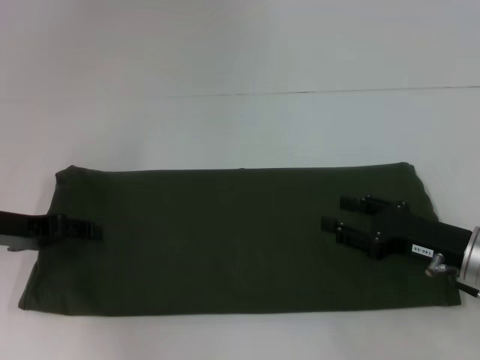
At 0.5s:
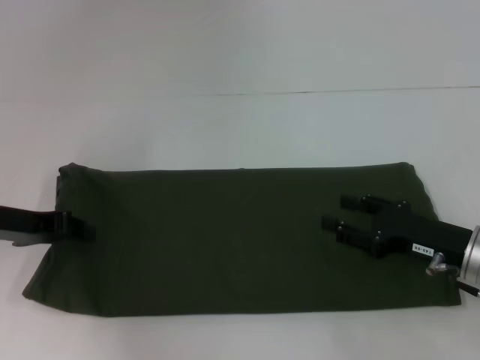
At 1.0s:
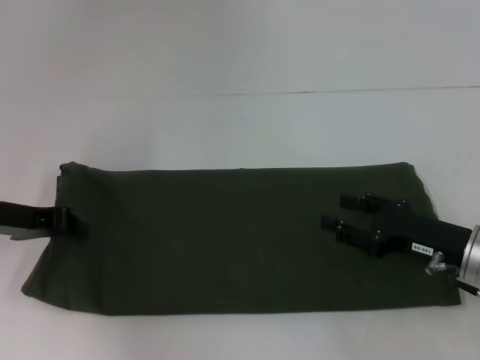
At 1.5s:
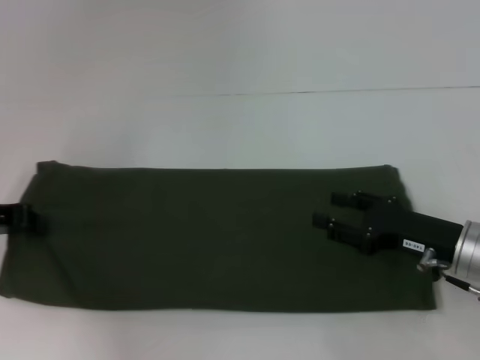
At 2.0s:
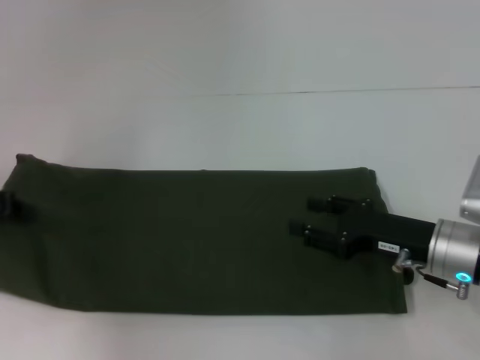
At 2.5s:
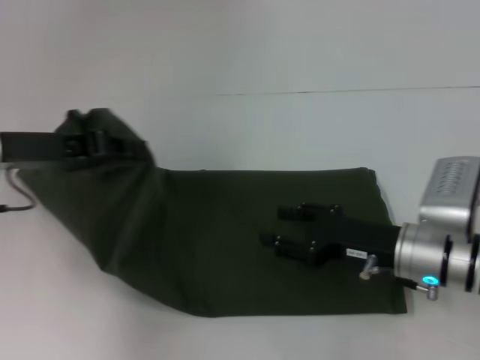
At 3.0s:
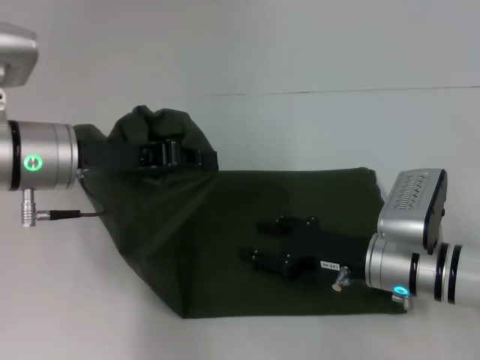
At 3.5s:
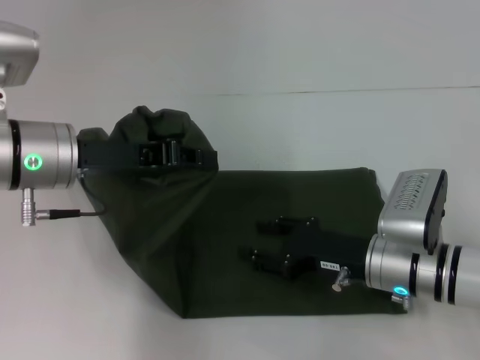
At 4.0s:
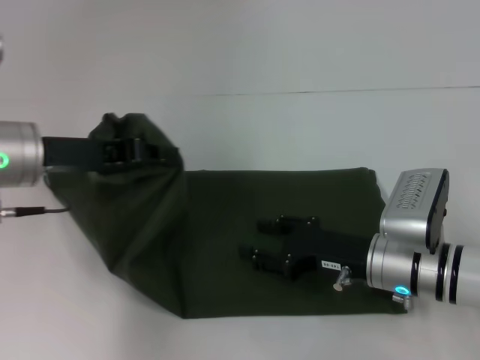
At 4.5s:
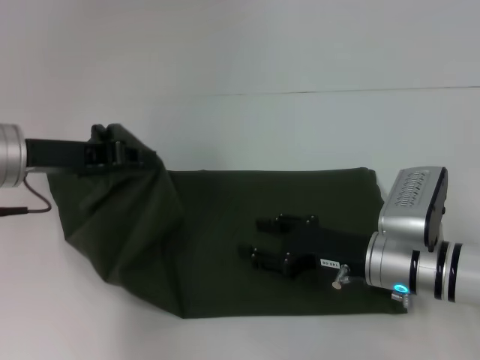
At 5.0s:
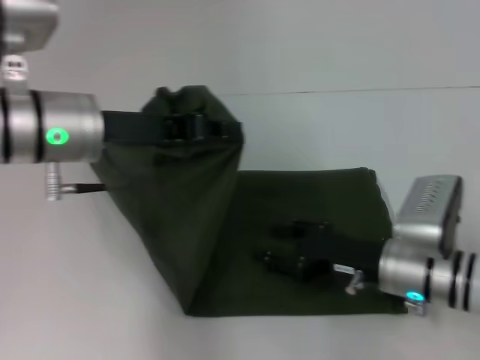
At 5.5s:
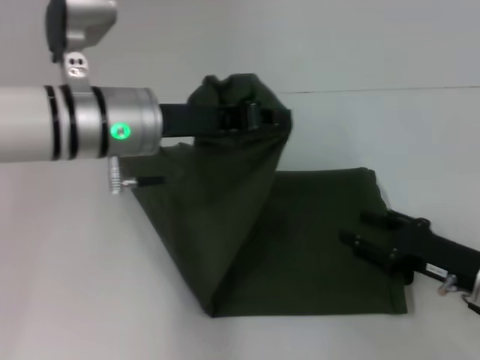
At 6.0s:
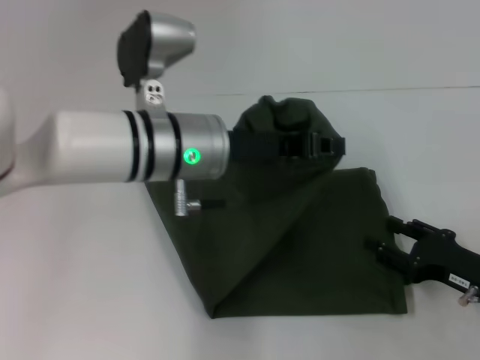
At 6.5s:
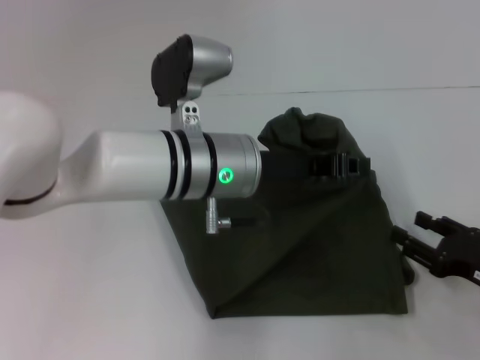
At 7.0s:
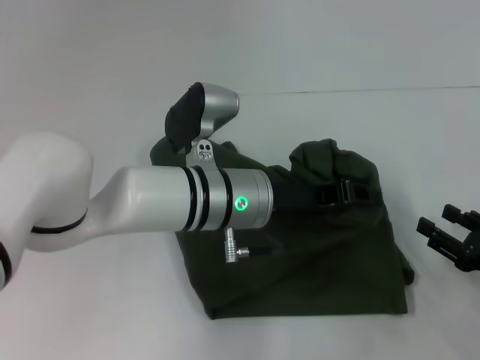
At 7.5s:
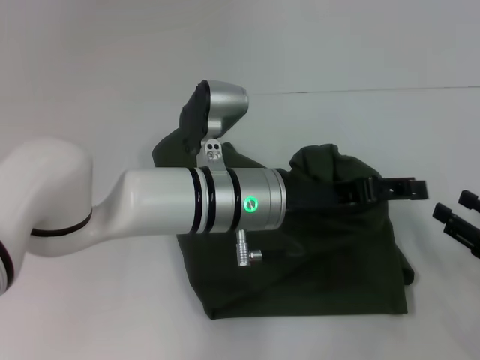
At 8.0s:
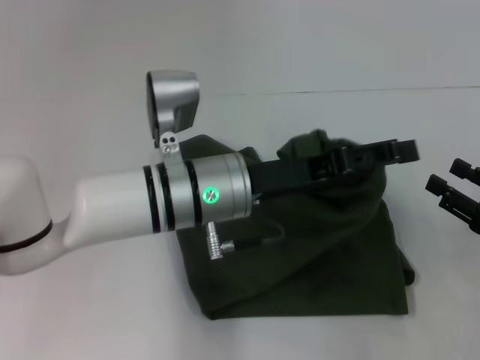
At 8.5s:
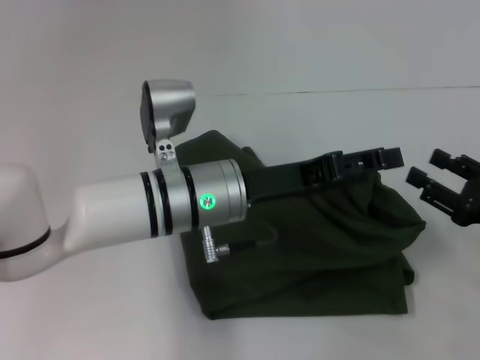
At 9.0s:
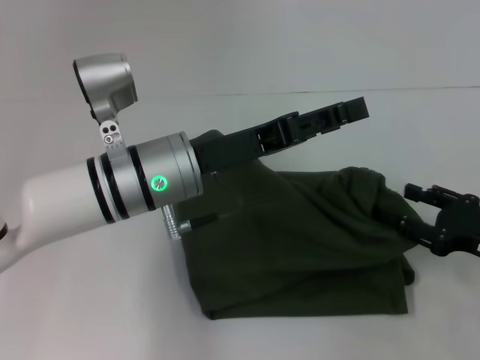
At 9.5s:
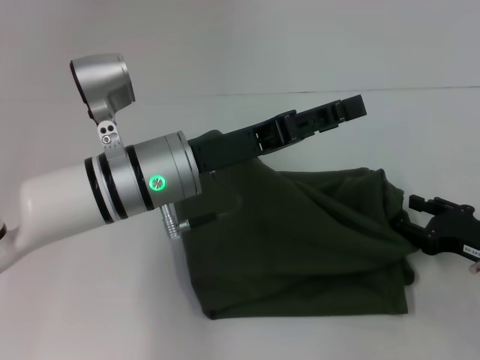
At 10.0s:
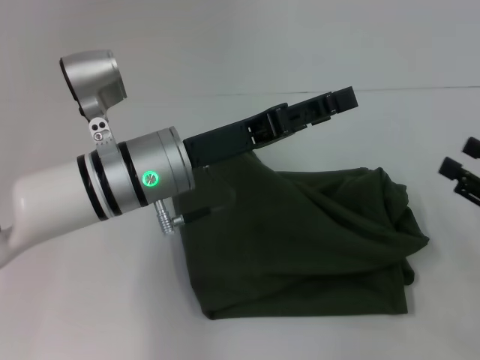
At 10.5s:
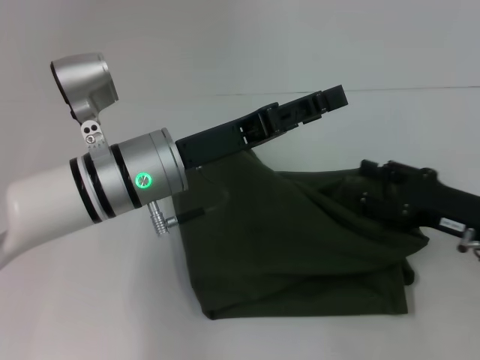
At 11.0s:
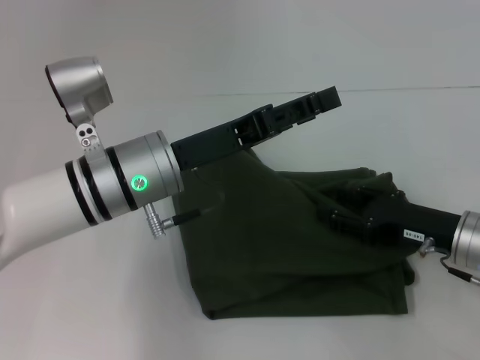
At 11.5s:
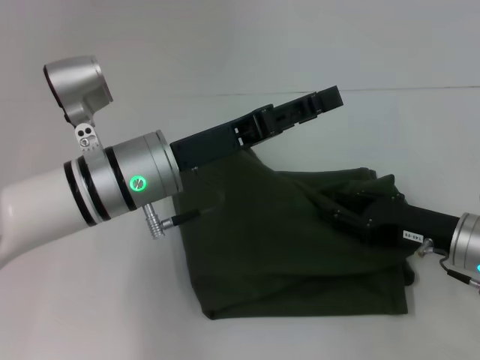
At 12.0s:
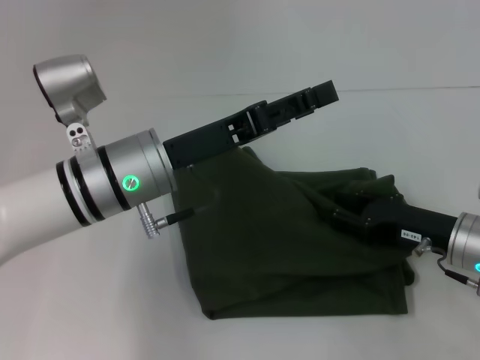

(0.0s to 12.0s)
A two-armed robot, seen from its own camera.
0.0s - 2.0s: The left gripper ends up some 5 cm from where it was, and closes its fingers.
2.0s - 4.0s: The right gripper goes about 5 cm to the left. Meanwhile the left gripper travels to the right by roughly 10 cm.
4.0s - 6.0s: The left gripper moves to the right, approximately 15 cm; the right gripper travels to the right and backward by roughly 15 cm.
6.0s - 8.0s: The right gripper shifts by approximately 5 cm. Meanwhile the left gripper opens.
10.0s - 12.0s: The right gripper is displaced to the left and forward by about 10 cm.

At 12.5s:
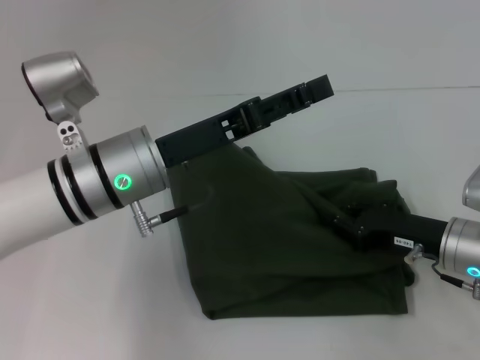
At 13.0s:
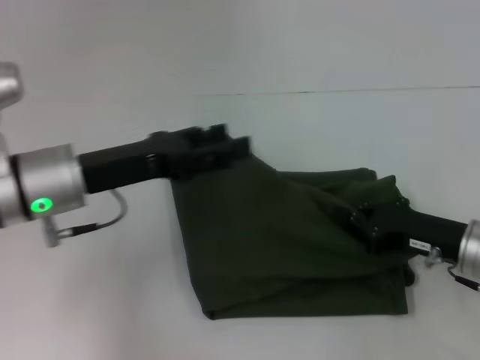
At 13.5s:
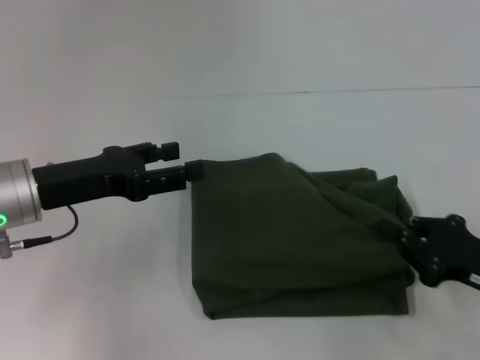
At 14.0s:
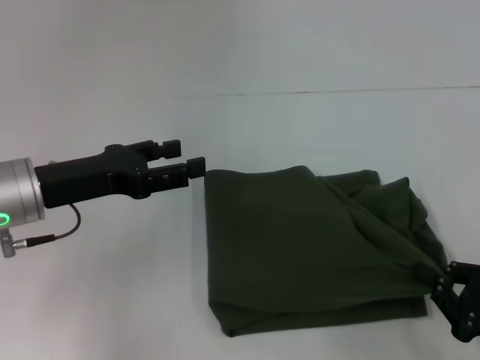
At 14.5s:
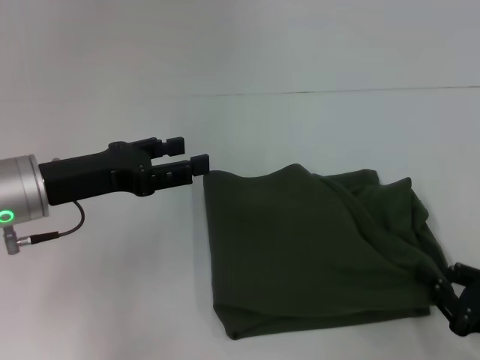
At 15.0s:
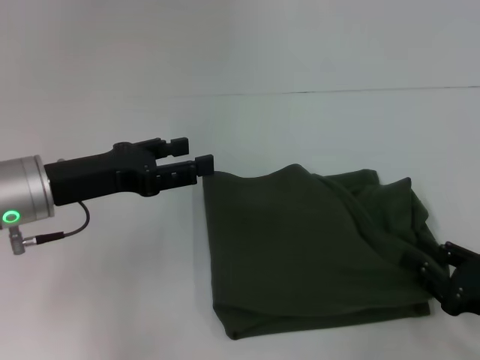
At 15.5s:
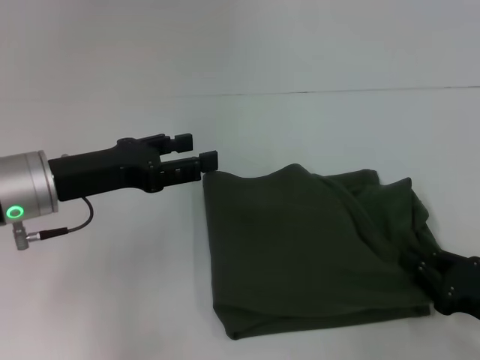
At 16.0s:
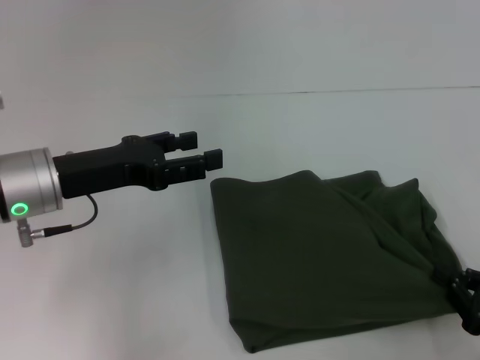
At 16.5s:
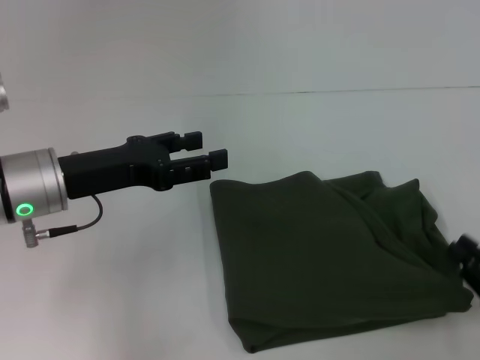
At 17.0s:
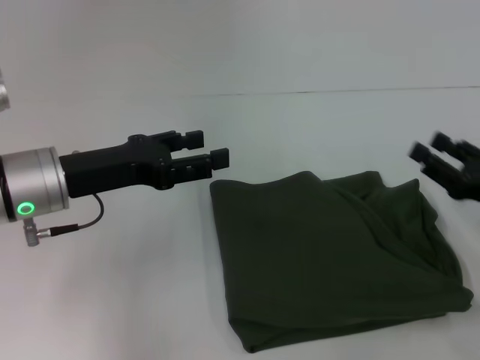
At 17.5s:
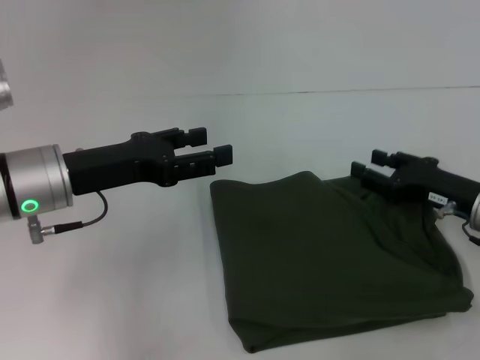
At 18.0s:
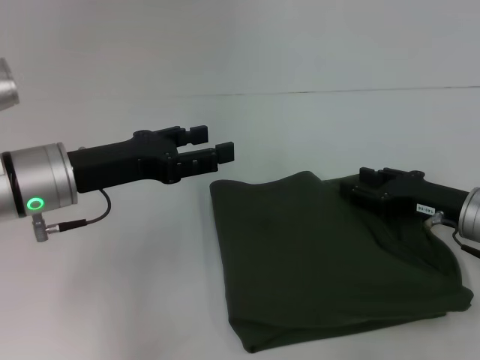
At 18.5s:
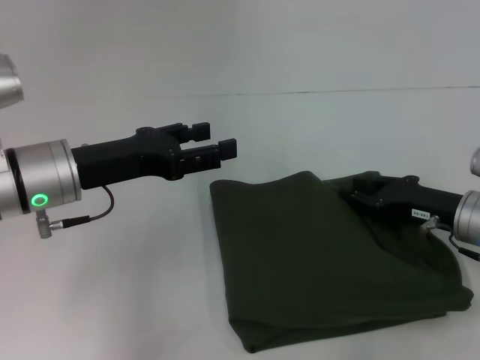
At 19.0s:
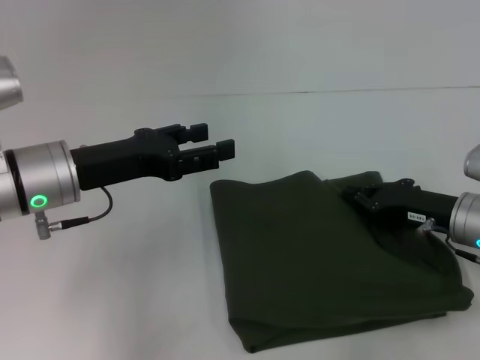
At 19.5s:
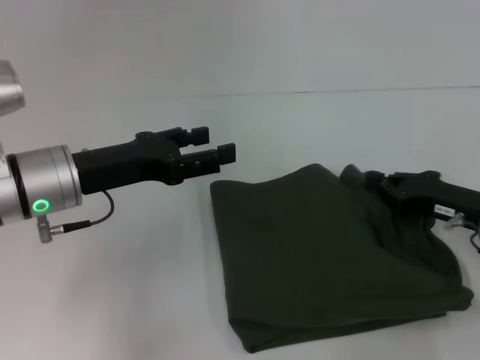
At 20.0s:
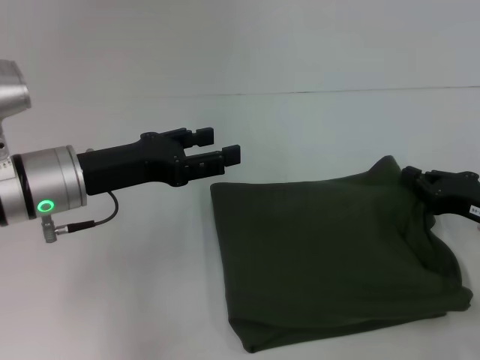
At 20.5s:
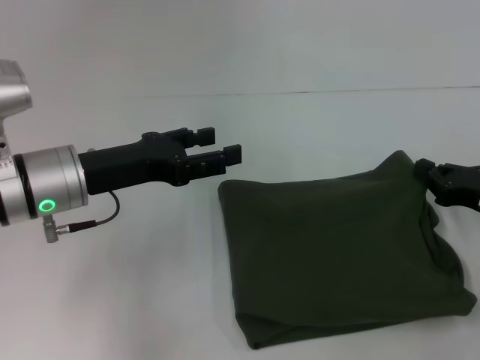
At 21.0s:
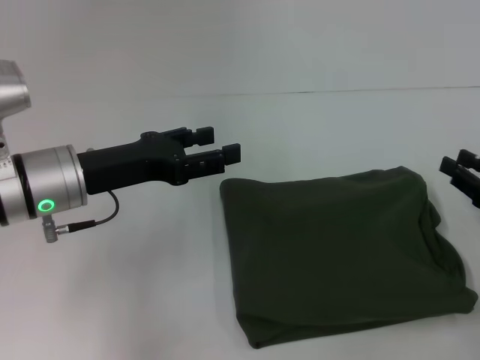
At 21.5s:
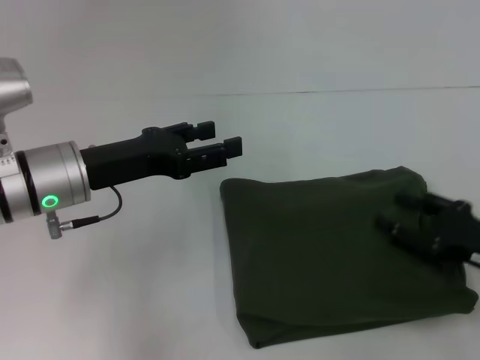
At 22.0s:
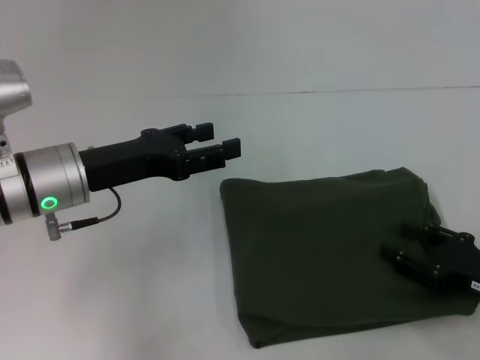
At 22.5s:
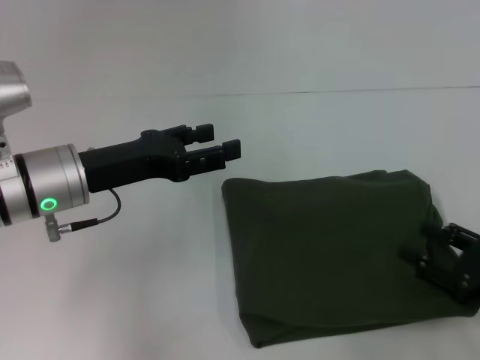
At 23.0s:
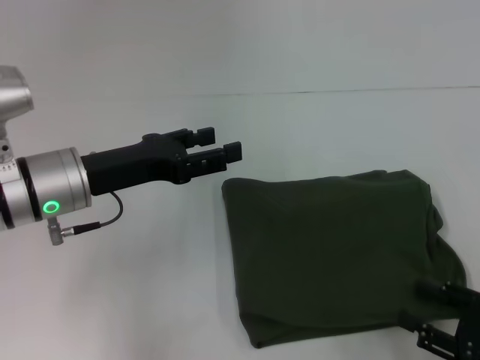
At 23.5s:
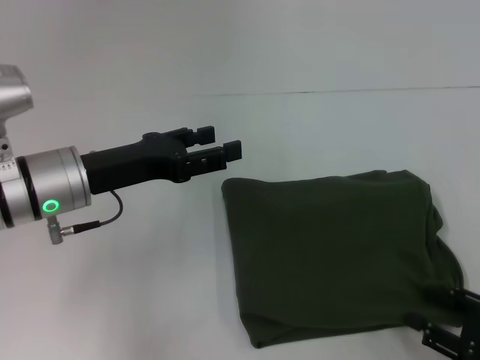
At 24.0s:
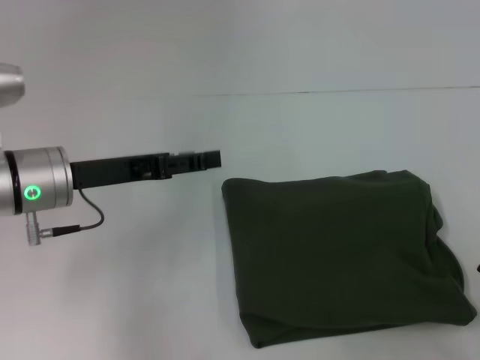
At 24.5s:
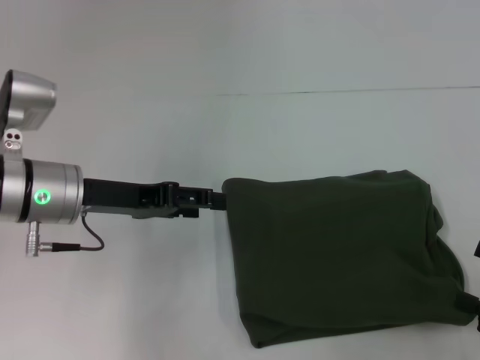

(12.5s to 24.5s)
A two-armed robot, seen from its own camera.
Step, 12.5s - 21.0s: Fold the clothes with your left hand.
12.5s - 14.5s: The right gripper is displaced backward and to the right by some 15 cm, and closes up, while the left gripper shifts roughly 10 cm to the left.
14.5s - 16.5s: There are only small adjustments of the grippers.
16.5s - 18.5s: The right gripper is displaced forward and to the left by some 15 cm.
18.5s - 20.5s: The right gripper heads to the right, covering about 5 cm, and closes its fingers.
20.5s - 22.5s: The right gripper shifts approximately 10 cm backward, and opens its fingers.
22.5s - 24.5s: The right gripper moves about 5 cm.

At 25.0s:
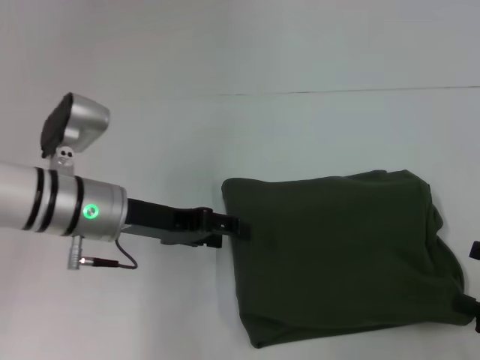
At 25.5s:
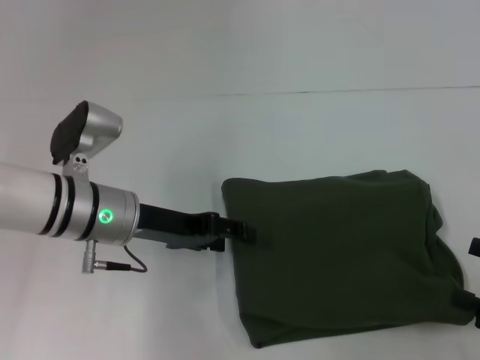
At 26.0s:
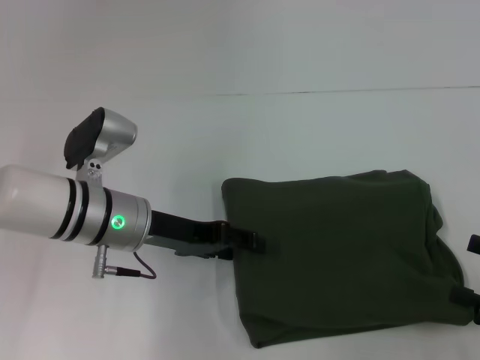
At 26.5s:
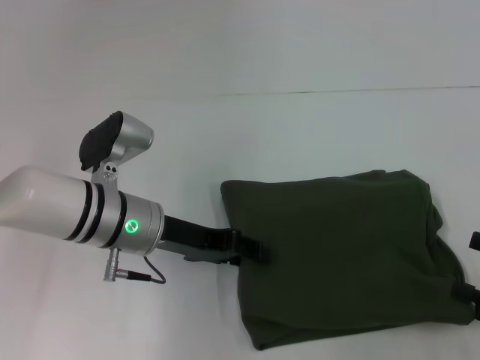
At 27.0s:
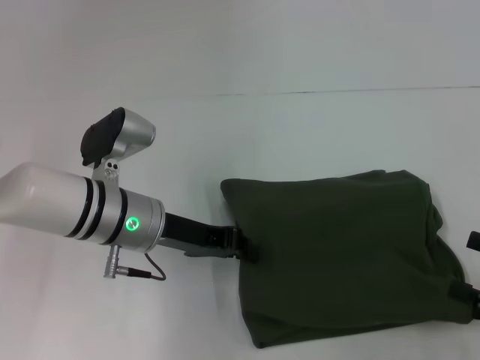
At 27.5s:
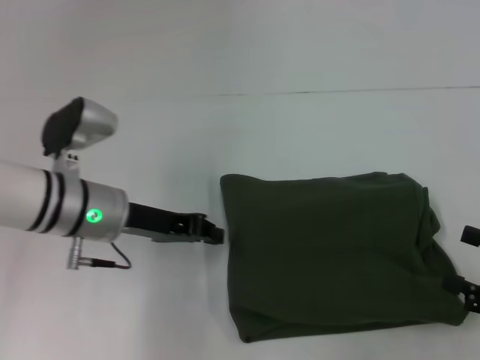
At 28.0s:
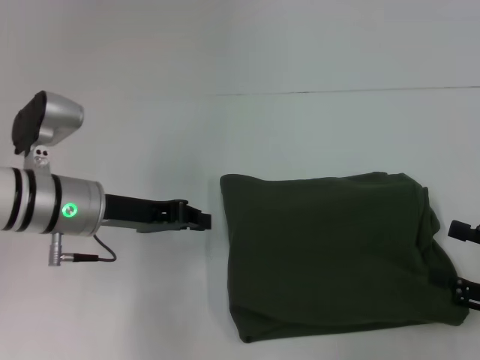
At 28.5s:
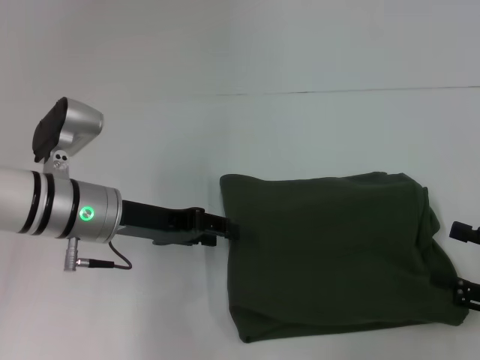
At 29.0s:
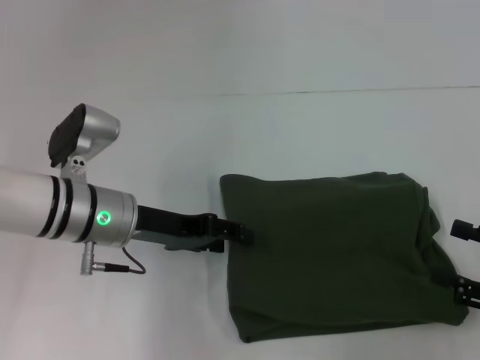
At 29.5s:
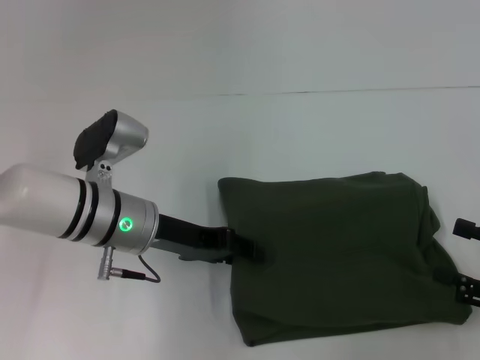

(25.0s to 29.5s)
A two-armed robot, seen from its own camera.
25.0s - 27.0s: The left gripper closes up.
27.0s - 29.5s: The left gripper opens up.
